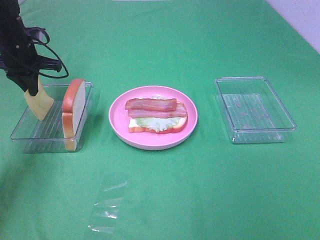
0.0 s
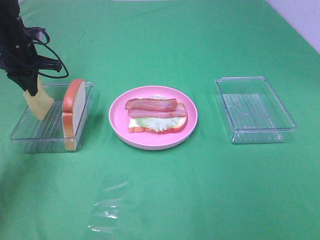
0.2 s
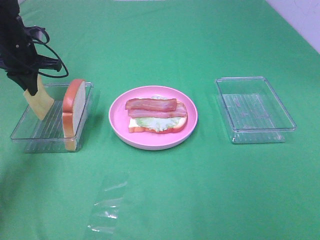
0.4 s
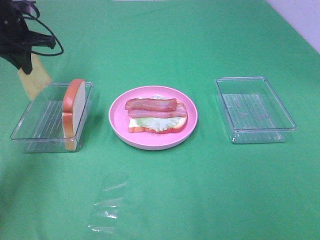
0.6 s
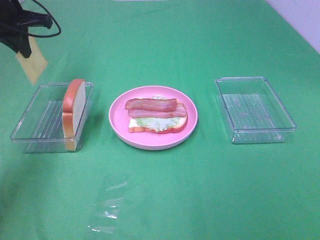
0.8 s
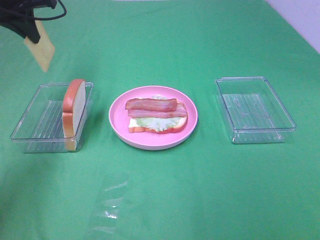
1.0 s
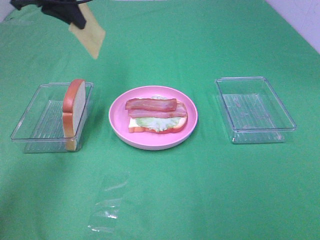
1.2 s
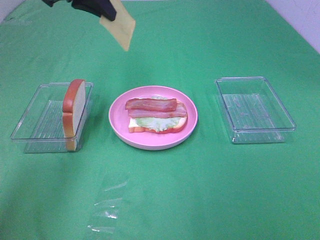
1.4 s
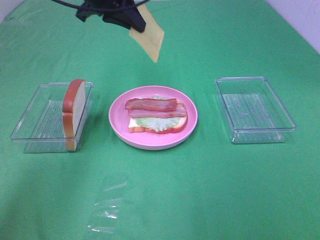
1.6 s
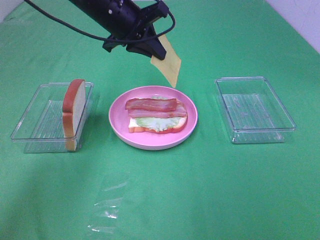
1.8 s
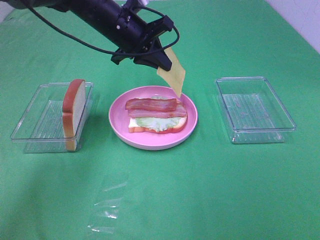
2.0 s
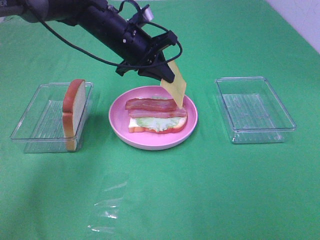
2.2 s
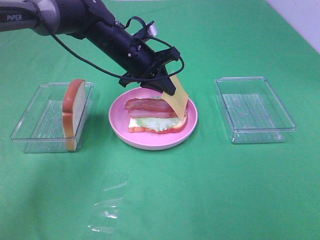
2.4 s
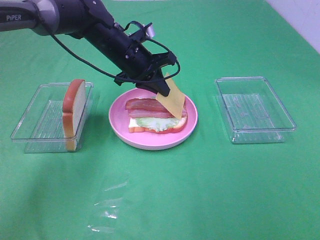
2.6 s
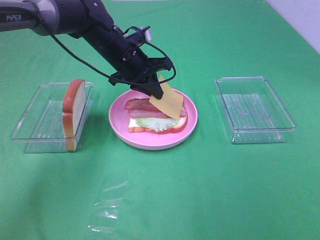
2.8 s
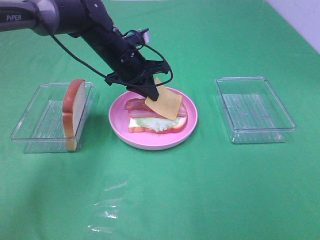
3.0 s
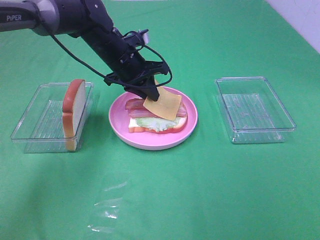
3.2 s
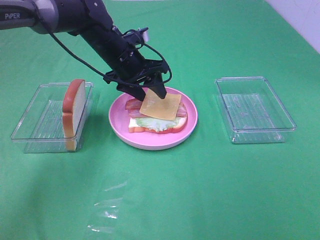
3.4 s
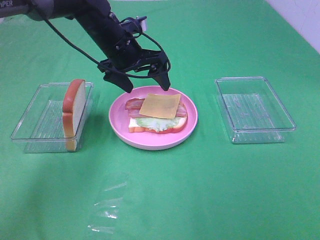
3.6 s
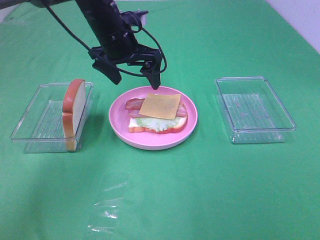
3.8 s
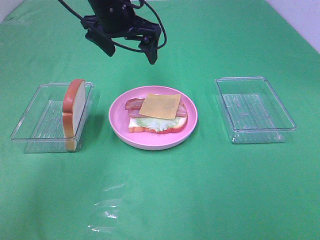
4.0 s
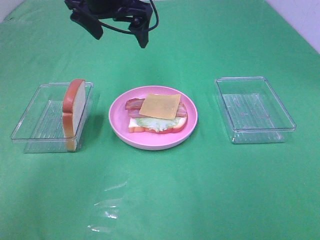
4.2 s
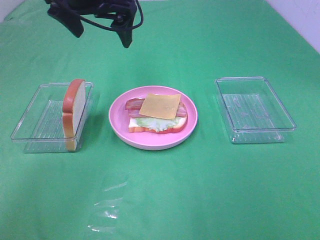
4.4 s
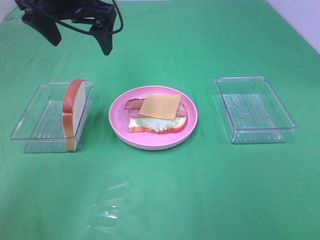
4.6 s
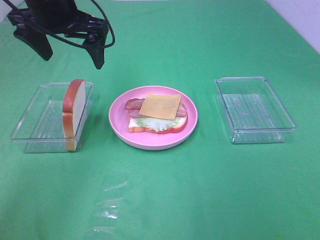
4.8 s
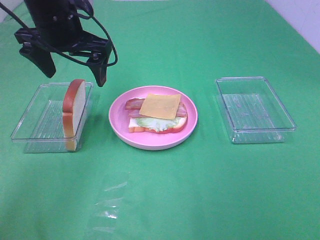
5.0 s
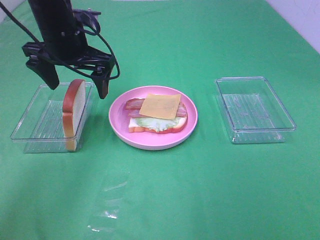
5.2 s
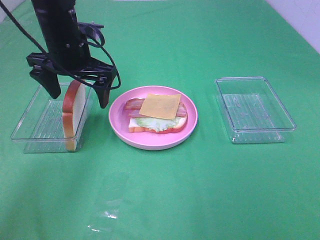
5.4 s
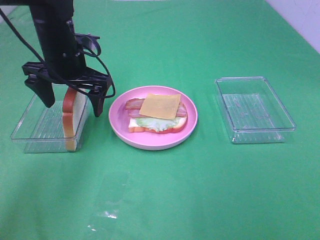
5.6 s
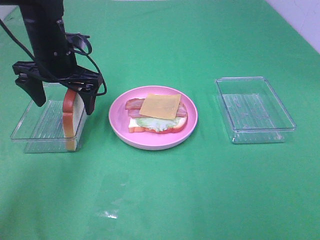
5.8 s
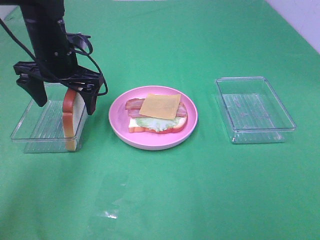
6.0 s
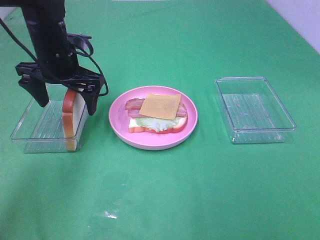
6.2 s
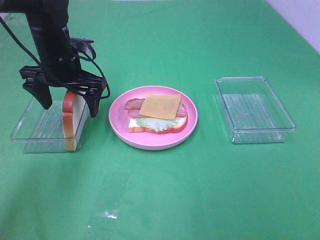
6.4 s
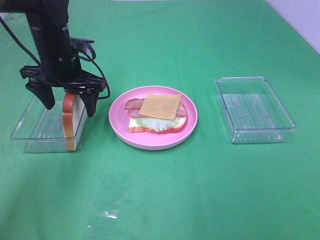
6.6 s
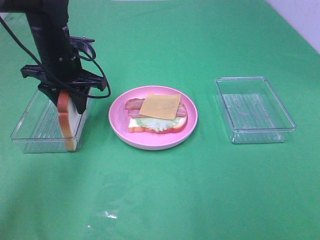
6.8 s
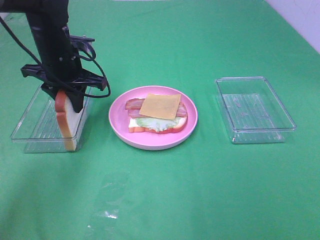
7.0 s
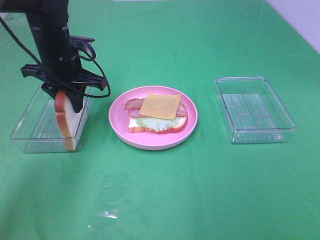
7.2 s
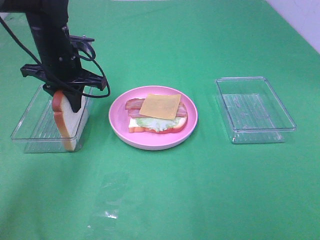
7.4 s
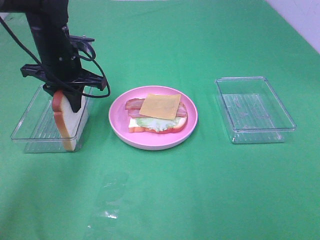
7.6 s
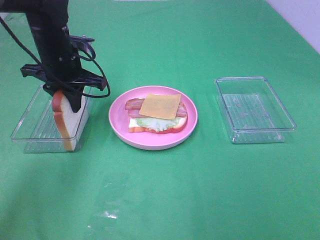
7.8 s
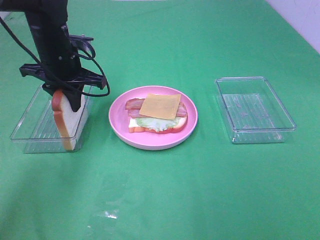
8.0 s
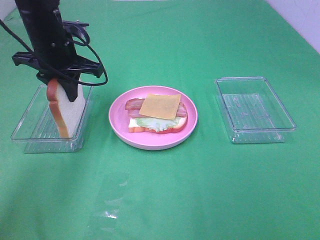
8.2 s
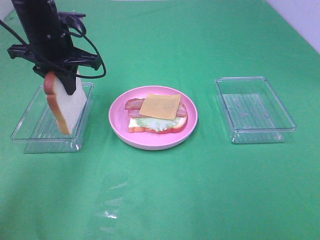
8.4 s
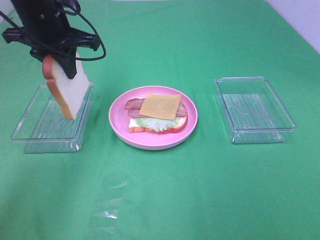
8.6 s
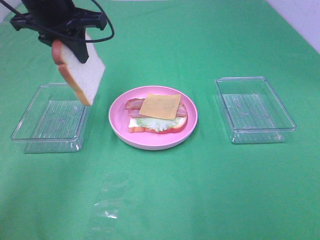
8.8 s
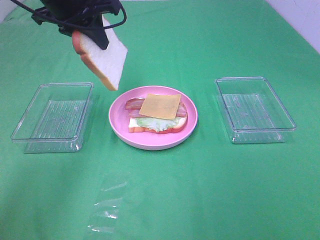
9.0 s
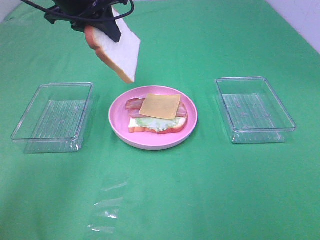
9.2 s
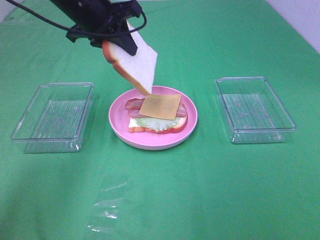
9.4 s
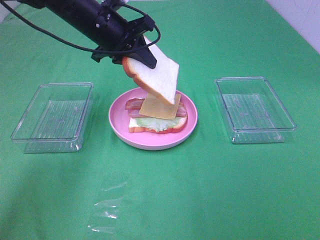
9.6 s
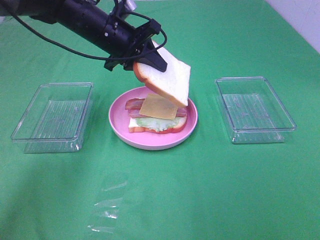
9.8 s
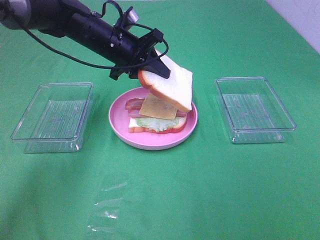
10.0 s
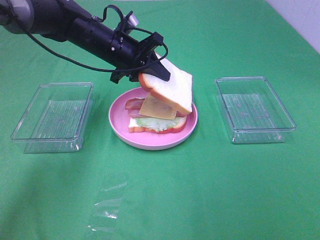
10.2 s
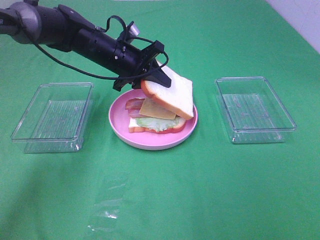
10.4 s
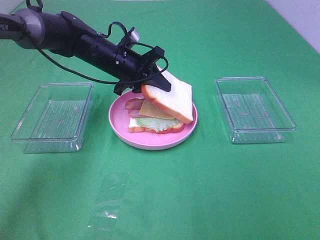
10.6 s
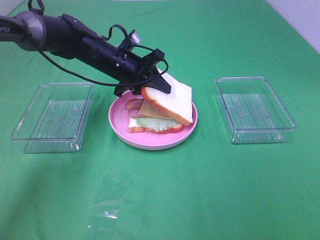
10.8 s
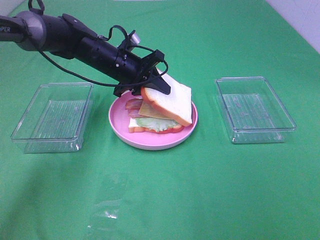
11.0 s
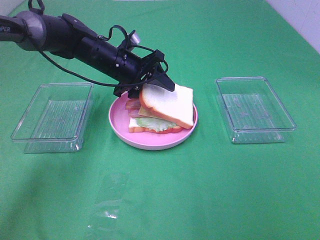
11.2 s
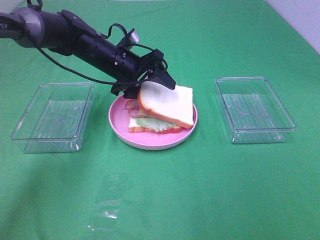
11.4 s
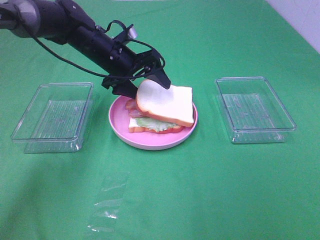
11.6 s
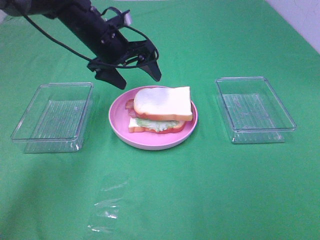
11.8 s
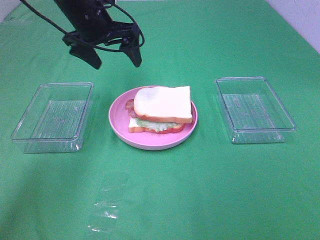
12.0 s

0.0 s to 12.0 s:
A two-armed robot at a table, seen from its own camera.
Task of the whole recording: Make sandwiches.
Step, 0.2 to 3.4 s: Left hand:place the cheese slice on top of the bacon.
Step, 3.6 to 7.2 s: Left hand:grab the bread slice.
Step, 7.4 to 11.8 s: Left hand:place the bread slice on the cheese slice.
0.0 to 1.6 s: The left gripper goes approximately 20 cm to the right and upward.
1.6 to 3.0 s: The left gripper shifts approximately 15 cm downward.
3.0 to 4.4 s: The left gripper heads upward, covering roughly 15 cm, and opens its fingers.
4.4 to 6.0 s: The left gripper is displaced downward and to the left by about 15 cm.
6.0 to 7.6 s: The left gripper closes its fingers.
7.6 to 9.0 s: The left gripper goes roughly 10 cm upward.
9.0 to 10.4 s: The left gripper is displaced downward and to the right by some 15 cm.
10.4 to 12.0 s: The left gripper shifts some 10 cm upward, and opens up.

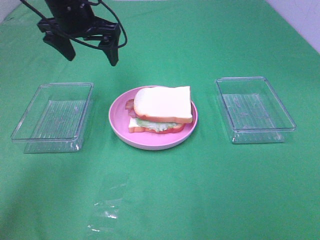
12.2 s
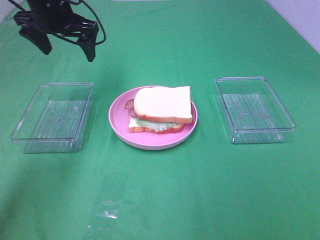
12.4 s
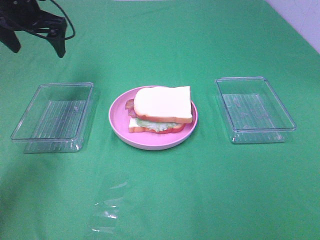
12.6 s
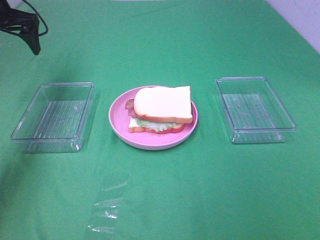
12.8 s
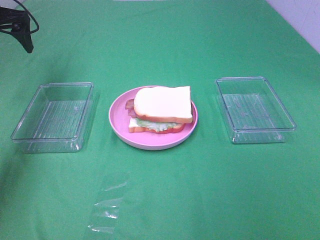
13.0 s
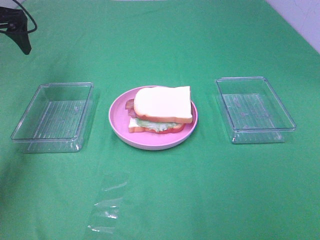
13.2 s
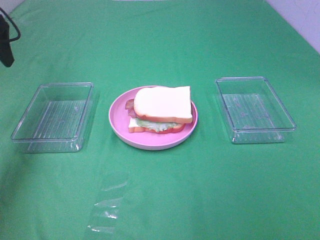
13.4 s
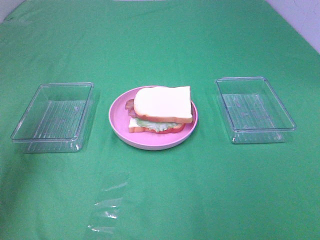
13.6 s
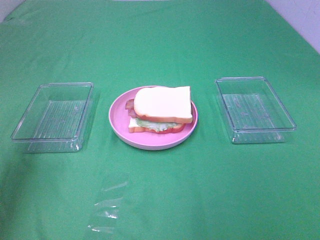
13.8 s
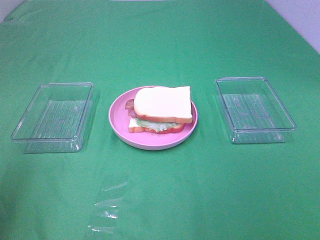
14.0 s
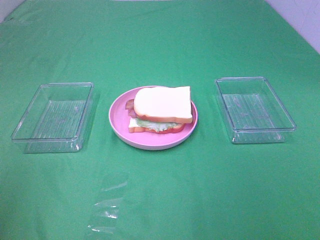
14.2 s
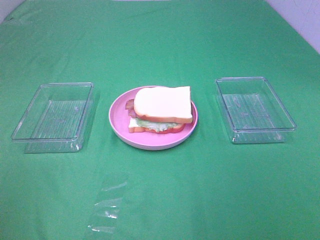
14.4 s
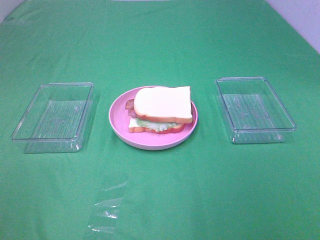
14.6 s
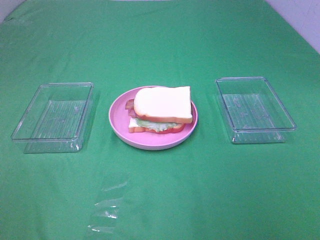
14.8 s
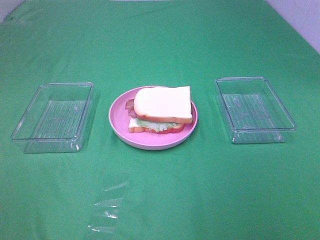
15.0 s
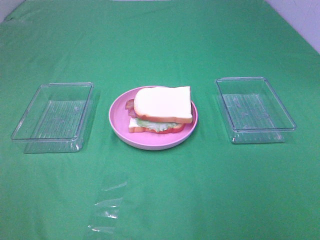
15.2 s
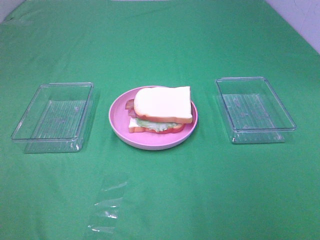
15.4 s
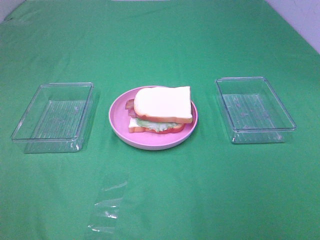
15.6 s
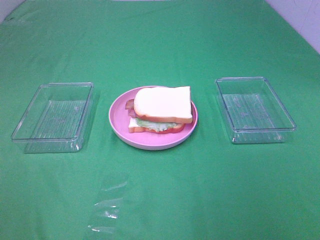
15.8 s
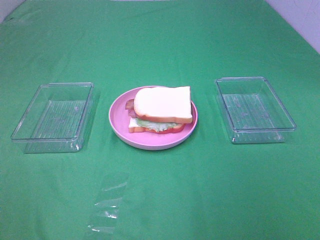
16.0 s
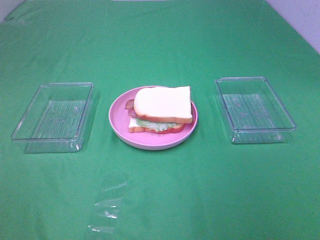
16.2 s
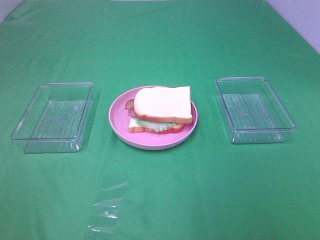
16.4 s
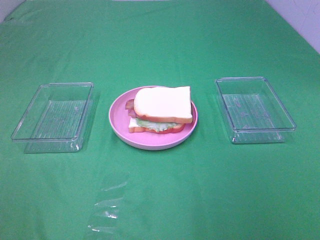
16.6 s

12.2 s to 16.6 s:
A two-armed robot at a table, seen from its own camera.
Task of the whole recording: Make sandwiches.
12.2 to 13.6 s: The left gripper heads to the left and backward, covering approximately 20 cm.
13.6 to 15.2 s: The left gripper travels backward by about 30 cm.
15.2 to 16.6 s: Both grippers stay put.

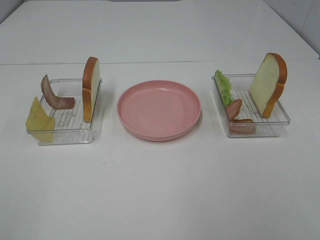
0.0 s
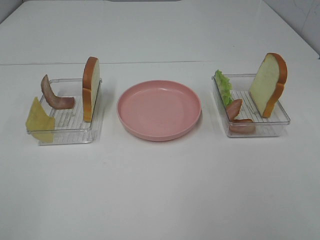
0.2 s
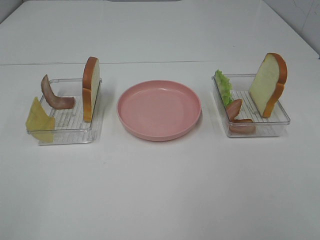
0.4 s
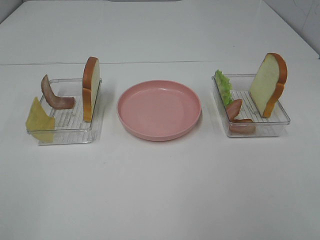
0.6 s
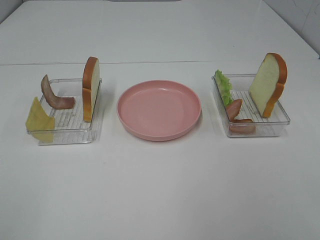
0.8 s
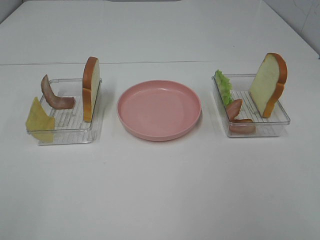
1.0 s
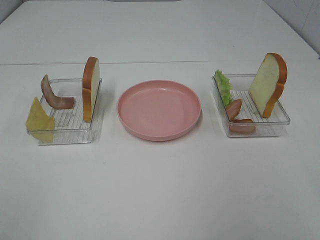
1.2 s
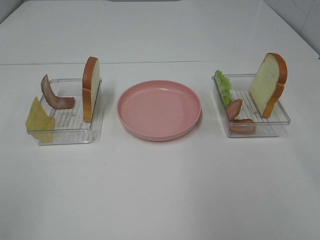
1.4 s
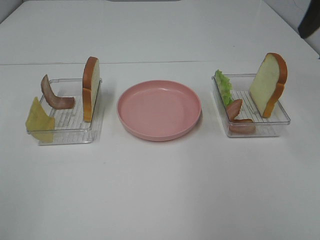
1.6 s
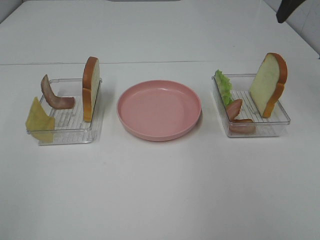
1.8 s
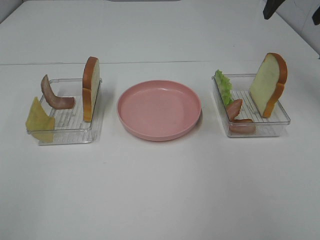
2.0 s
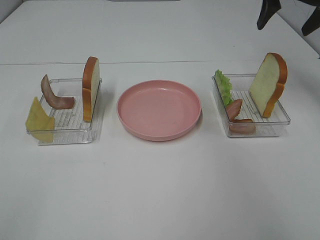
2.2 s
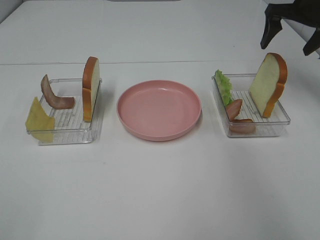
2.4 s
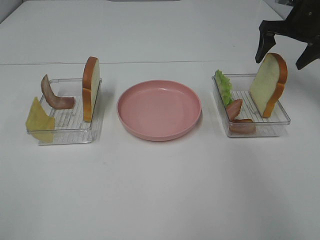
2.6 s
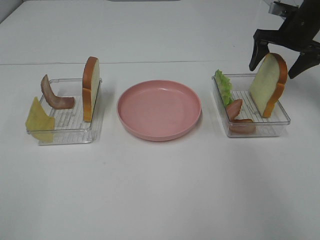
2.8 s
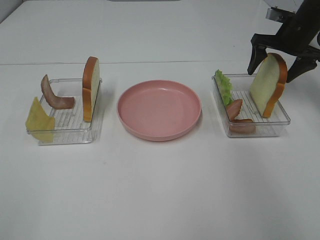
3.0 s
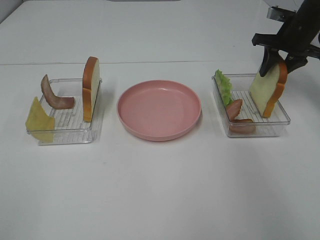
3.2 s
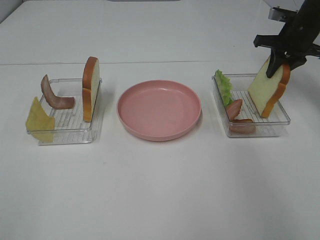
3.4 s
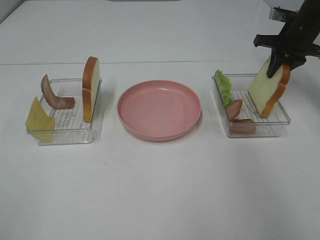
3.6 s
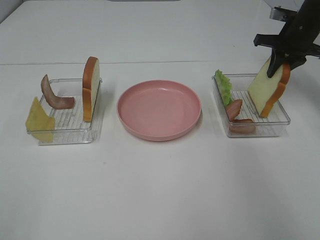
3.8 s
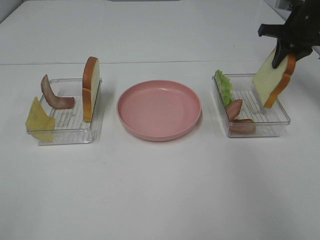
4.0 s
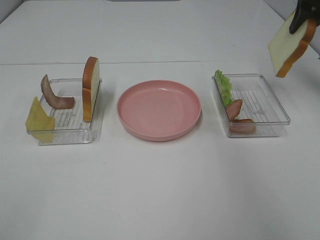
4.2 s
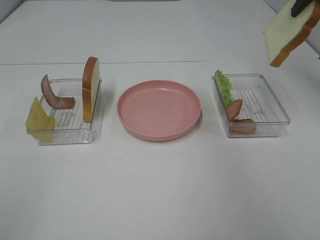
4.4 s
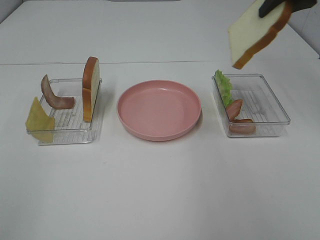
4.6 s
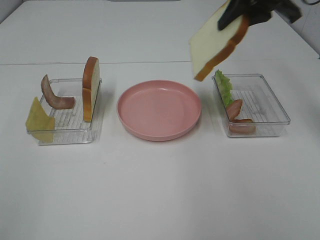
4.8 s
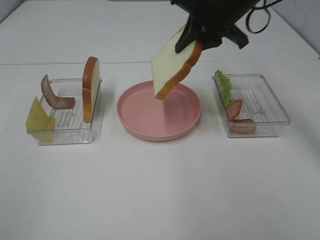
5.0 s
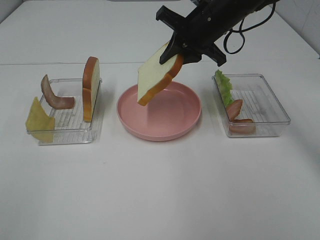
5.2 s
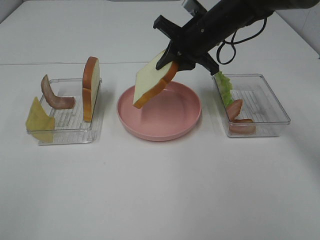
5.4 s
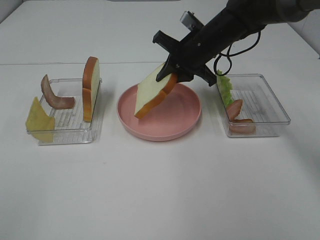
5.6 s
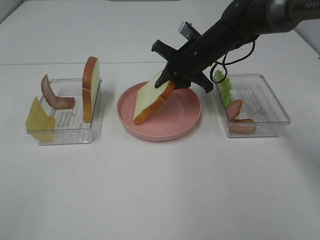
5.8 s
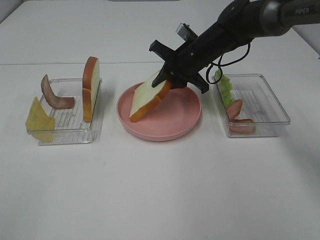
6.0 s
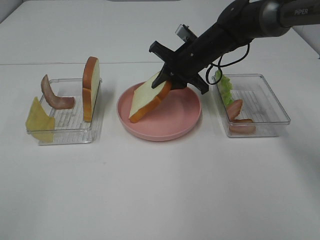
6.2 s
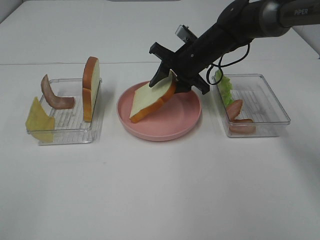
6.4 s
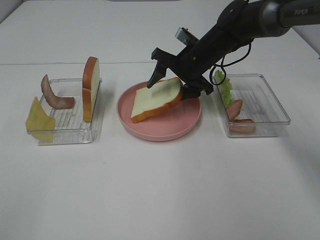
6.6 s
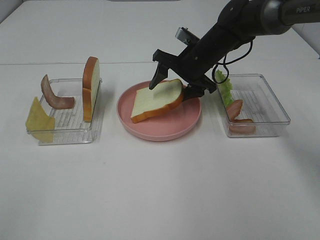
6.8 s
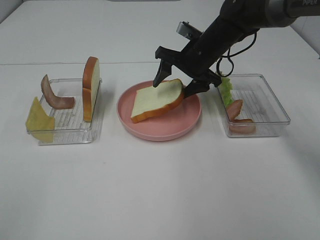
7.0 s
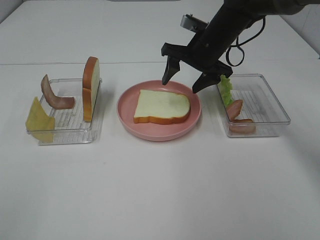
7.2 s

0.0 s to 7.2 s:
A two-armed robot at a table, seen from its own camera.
Task of the whole recording: Make sandwiches.
Step, 0.0 to 4.0 s: Right hand:grab the bread slice.
1.4 to 2.8 s: The right gripper goes some 30 cm forward and downward.
2.8 to 4.4 s: The right gripper shifts roughly 15 cm upward and backward, and closes.
4.4 to 5.8 s: The right gripper shifts approximately 25 cm downward and to the left.
5.8 to 7.2 s: The right gripper opens up.
